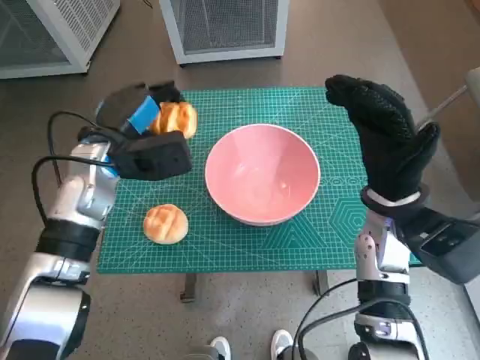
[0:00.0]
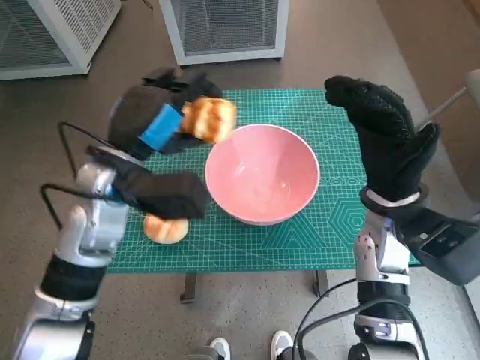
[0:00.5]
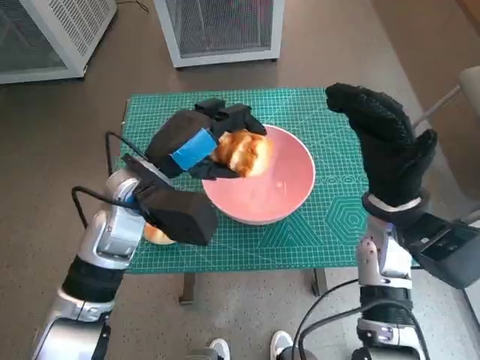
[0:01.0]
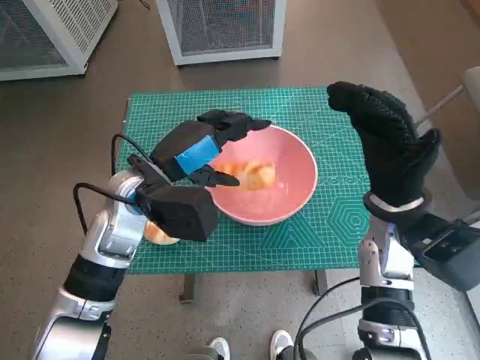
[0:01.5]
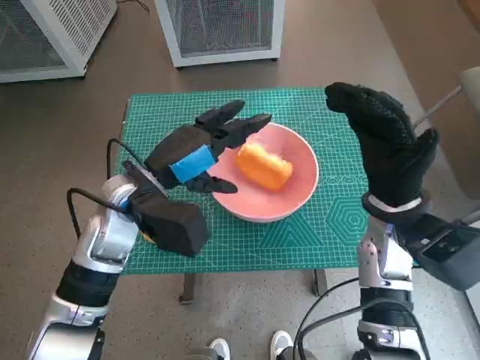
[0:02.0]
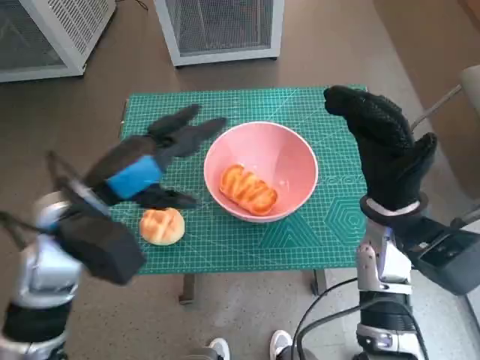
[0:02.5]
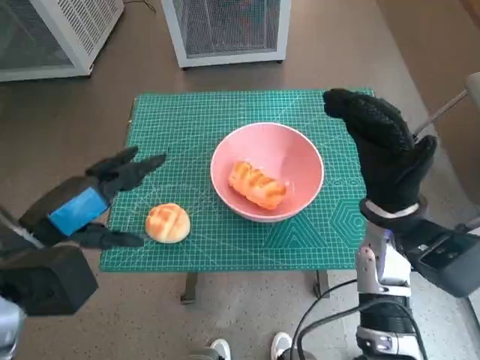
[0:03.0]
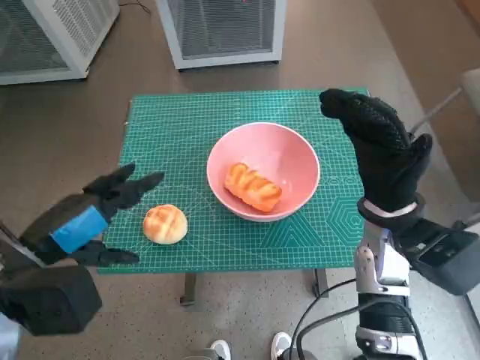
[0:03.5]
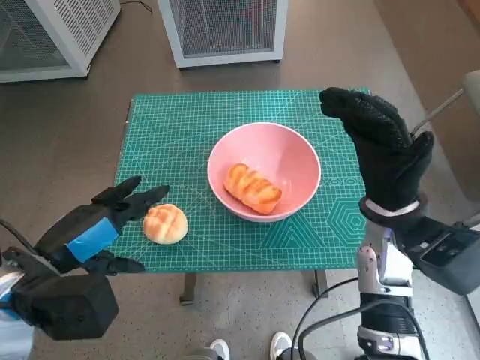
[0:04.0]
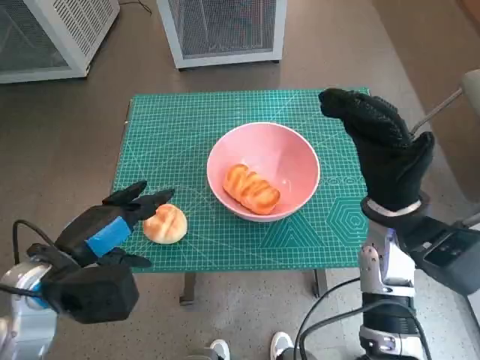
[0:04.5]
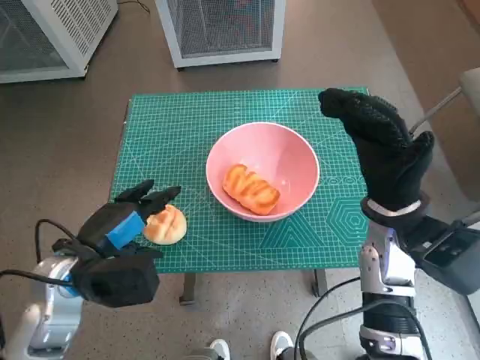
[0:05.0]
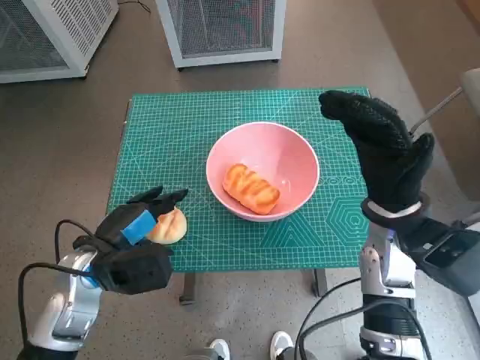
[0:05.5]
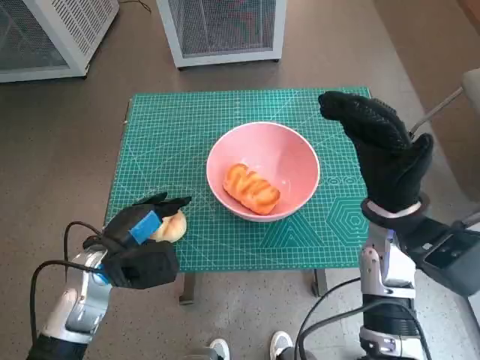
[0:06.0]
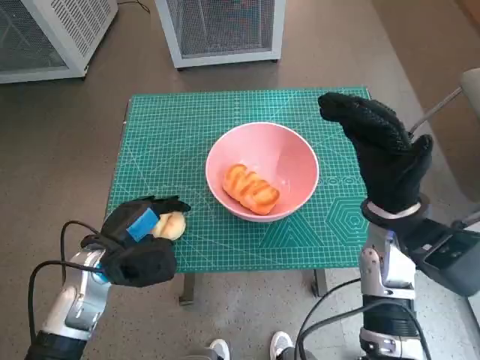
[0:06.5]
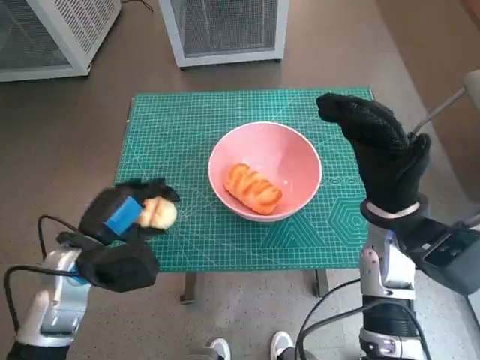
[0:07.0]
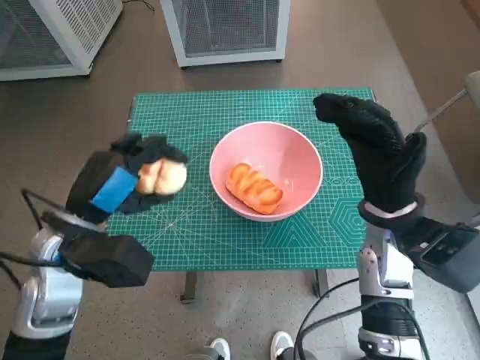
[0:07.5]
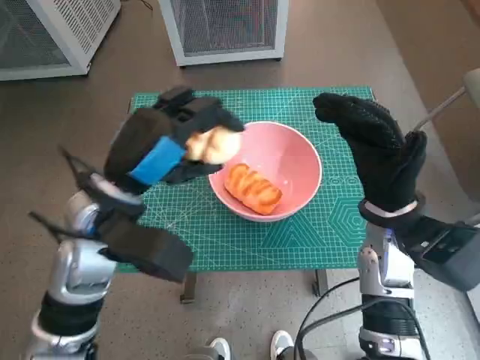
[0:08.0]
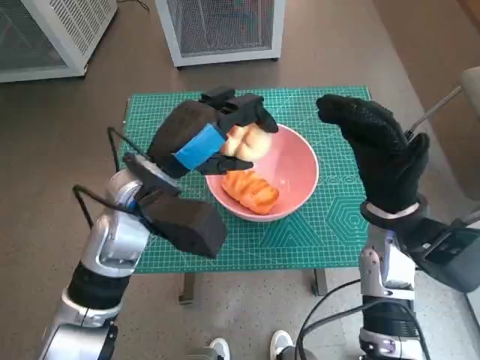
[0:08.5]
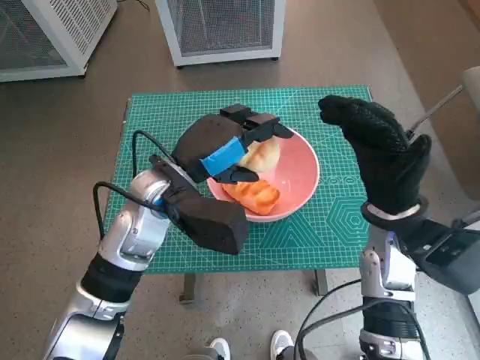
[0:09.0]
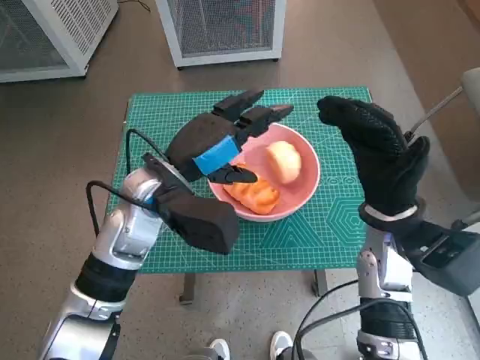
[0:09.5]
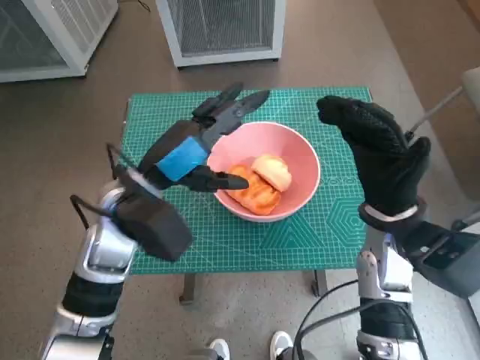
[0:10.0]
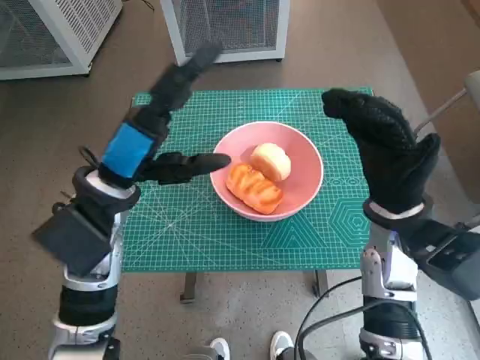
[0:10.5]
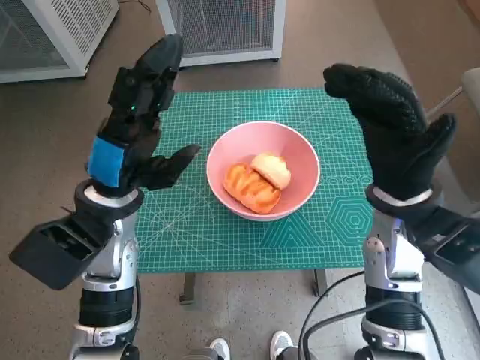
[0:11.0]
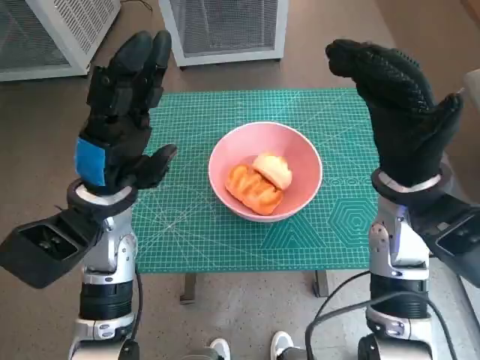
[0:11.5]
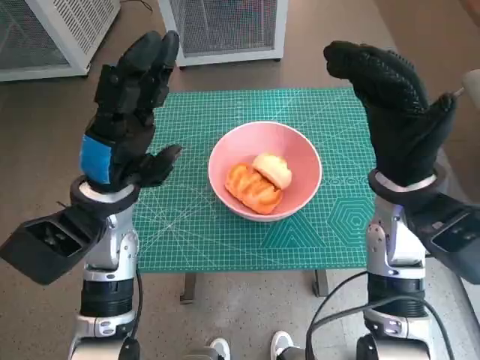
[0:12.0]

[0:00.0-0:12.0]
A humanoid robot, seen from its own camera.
Task of the whole recording: Push the bowl into the center of the table and put the bread into the bowl.
Step, 0:00.0 to 0:01.5: Place the long bread in pink bowl with left hand.
Step, 0:02.0 to 0:06.0: Grasp the round bread with left hand.
Step, 0:06.5 to 0:09.0: Place the round bread in pink bowl with left hand.
0:00.0 to 0:02.0: The left hand goes about 5 cm to the right.
0:02.0 to 0:04.0: The left hand moves backward and to the left, approximately 15 cm.
0:04.0 to 0:06.0: The left hand moves downward and forward, some 10 cm.
0:06.0 to 0:08.0: The left hand shifts approximately 15 cm upward and to the right.
0:10.0 to 0:12.0: The right hand is displaced upward by approximately 5 cm.

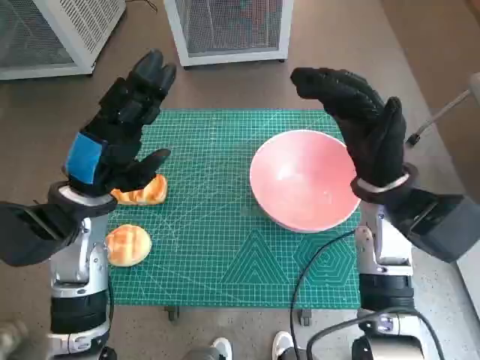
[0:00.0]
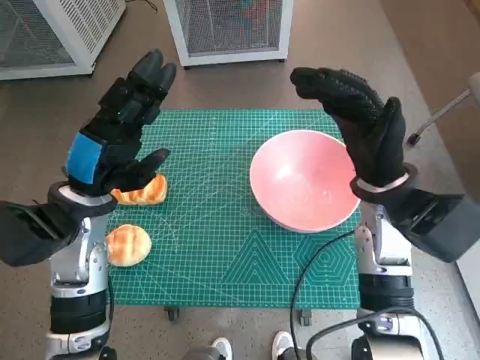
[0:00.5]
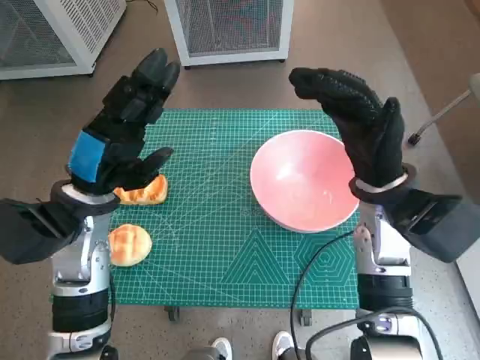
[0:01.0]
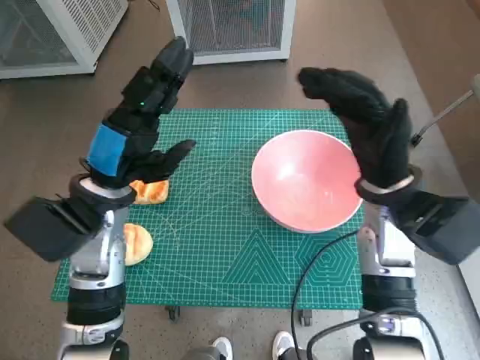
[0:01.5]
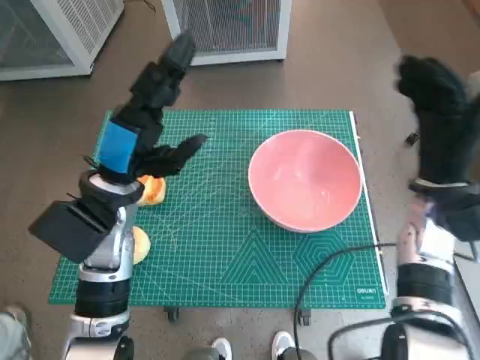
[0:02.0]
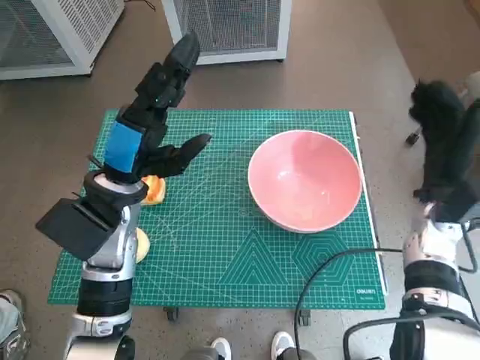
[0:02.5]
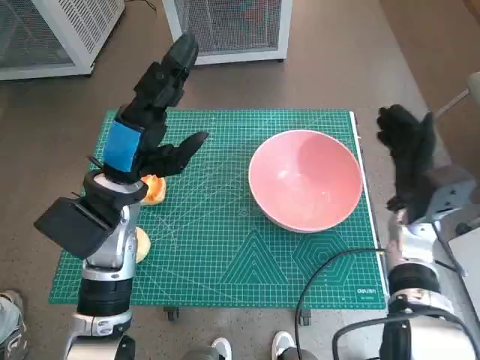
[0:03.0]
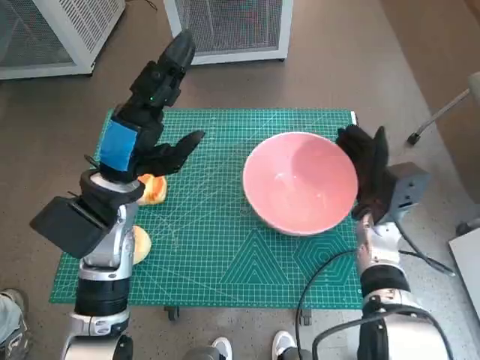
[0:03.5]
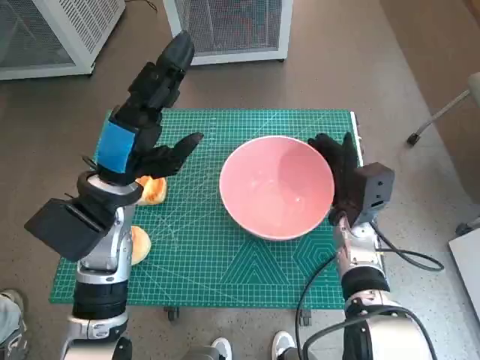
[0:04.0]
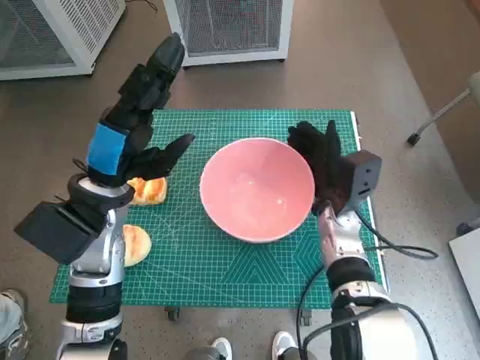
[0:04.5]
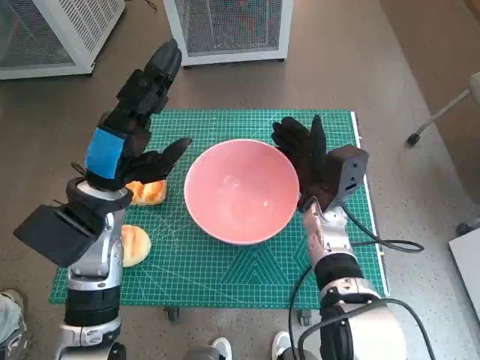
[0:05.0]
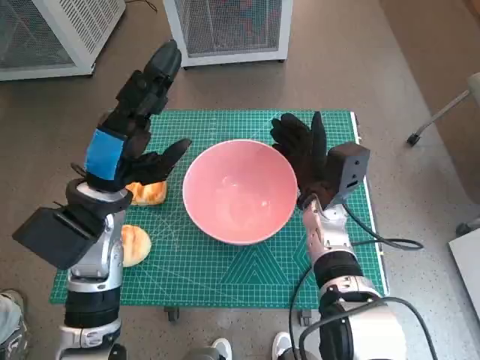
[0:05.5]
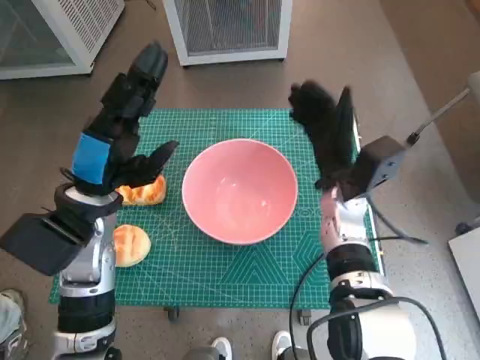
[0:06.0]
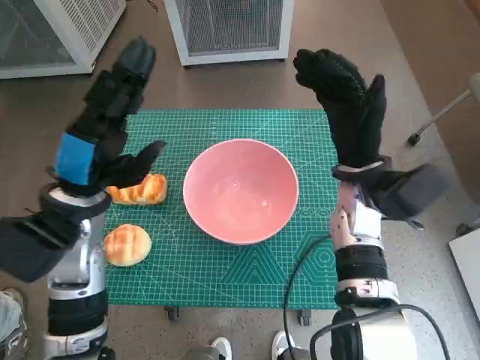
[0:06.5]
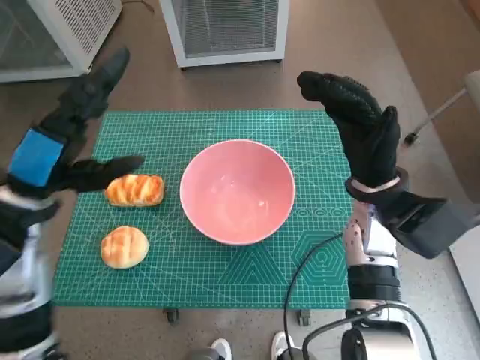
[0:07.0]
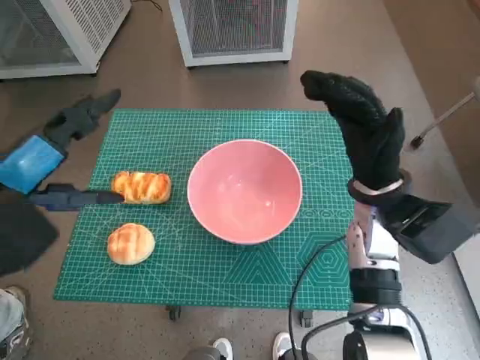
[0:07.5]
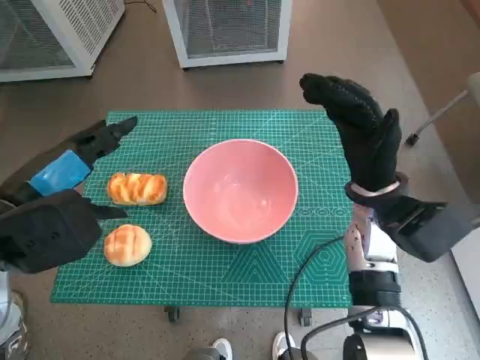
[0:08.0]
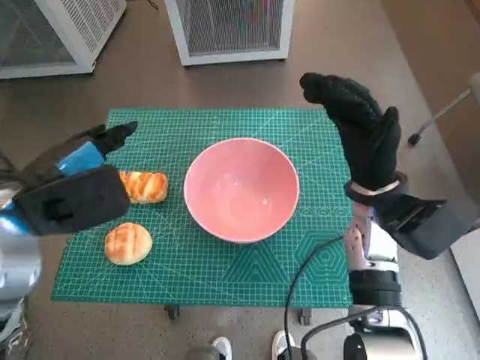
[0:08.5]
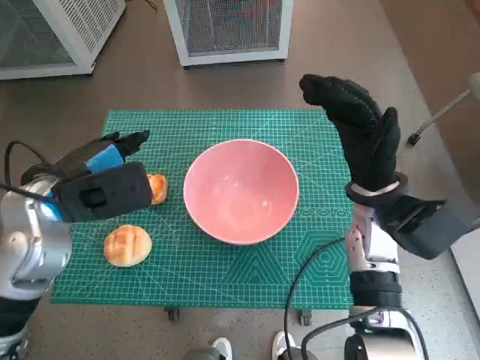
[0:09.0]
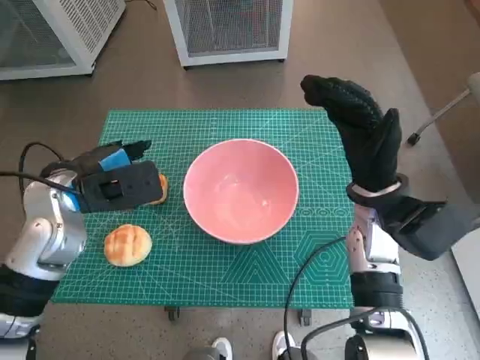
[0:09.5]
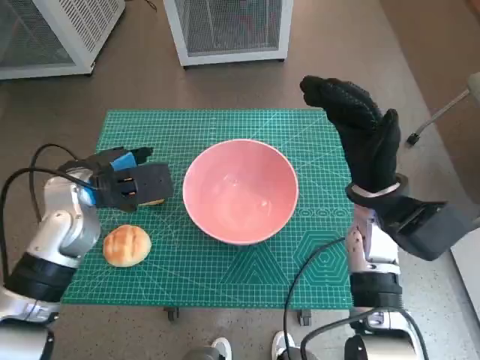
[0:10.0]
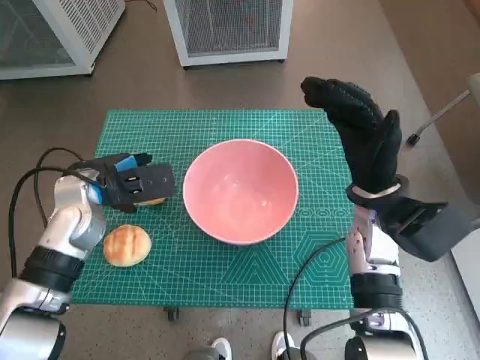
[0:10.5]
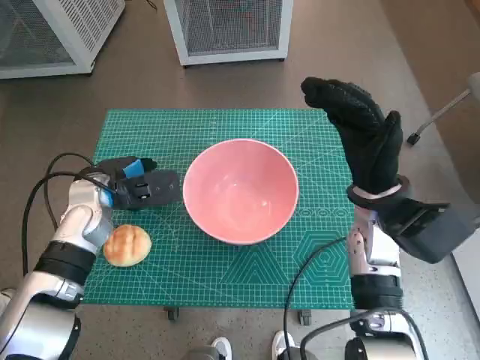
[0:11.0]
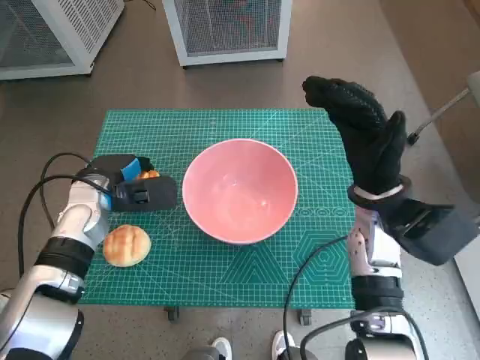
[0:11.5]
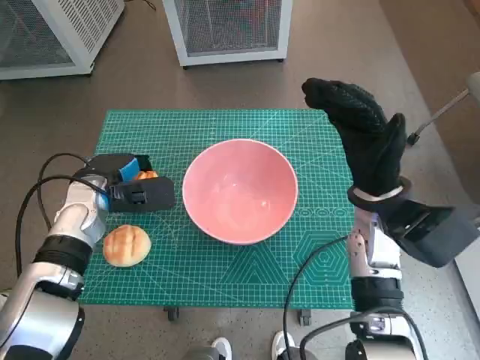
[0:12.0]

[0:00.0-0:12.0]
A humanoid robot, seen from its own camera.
Task of the whole recording: Push the bowl into the center of the table and put the bread into the bowl.
Step, 0:00.0 to 0:05.5: Move the pink bowl to the center of table with right hand.
Step, 0:06.0 to 0:11.0: Grasp the long bread with left hand.
0:02.0 to 0:04.0: The right hand shifts approximately 10 cm downward and to the left.
0:04.0 to 0:06.0: The right hand shifts by roughly 5 cm.
0:06.0 to 0:08.0: The left hand goes some 10 cm upward and backward; the right hand shifts roughly 5 cm upward.
0:08.0 to 0:10.0: The left hand shifts approximately 15 cm forward and downward.
0:10.0 to 0:12.0: The left hand shifts approximately 5 cm downward.

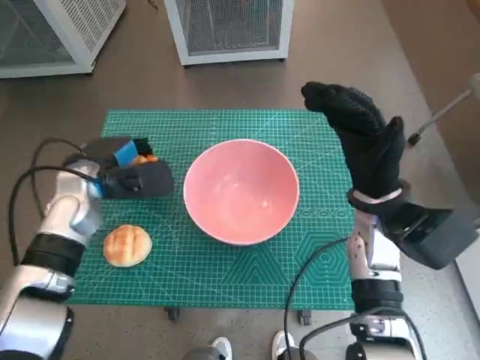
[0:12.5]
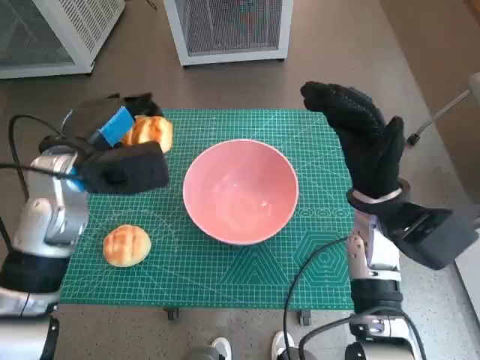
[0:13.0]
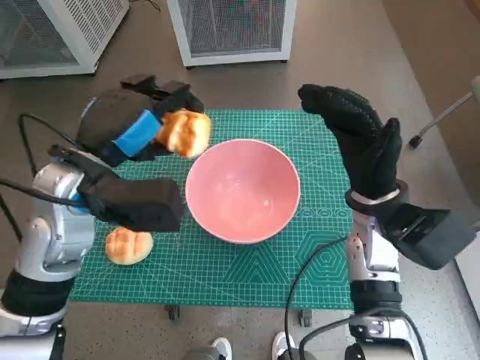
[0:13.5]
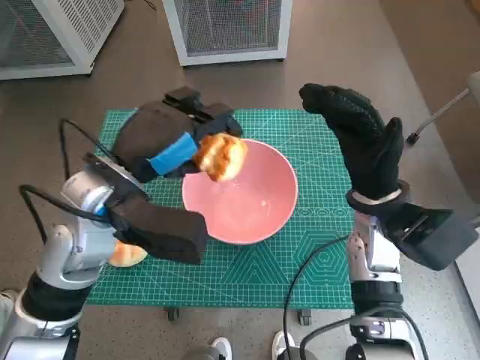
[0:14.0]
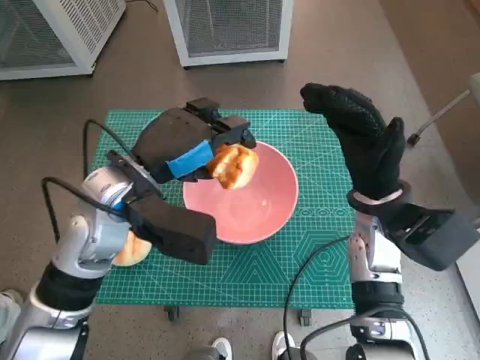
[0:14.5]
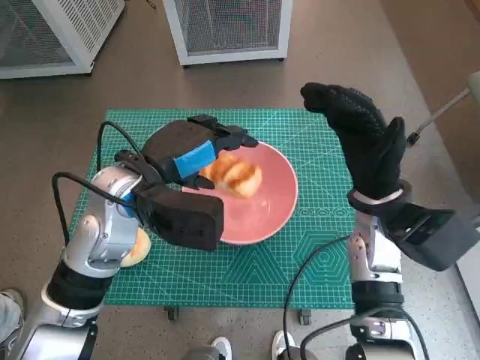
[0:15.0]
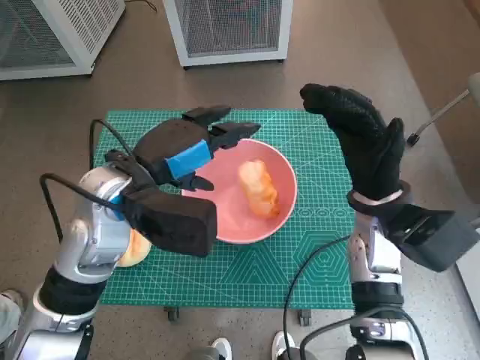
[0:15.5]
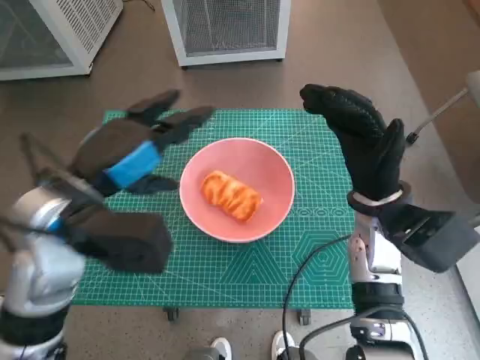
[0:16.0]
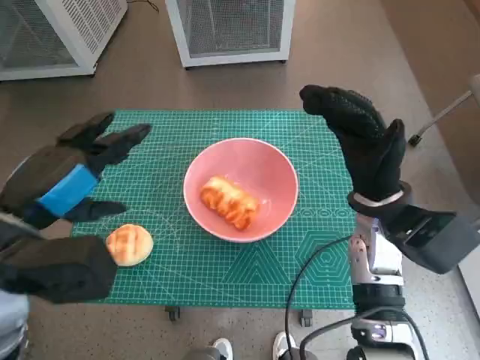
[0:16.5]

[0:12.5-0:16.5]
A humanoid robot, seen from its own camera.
Task of the whole recording: Push the bowl into the center of the table and put the bread into the bowl.
Step, 0:12.5 to 0:15.0: Place the long bread in pink bowl with left hand.
0:12.5 to 0:14.5: The left hand travels to the right, upward and backward by approximately 15 cm.
0:14.5 to 0:16.5: The left hand is displaced to the left and backward by roughly 10 cm.
